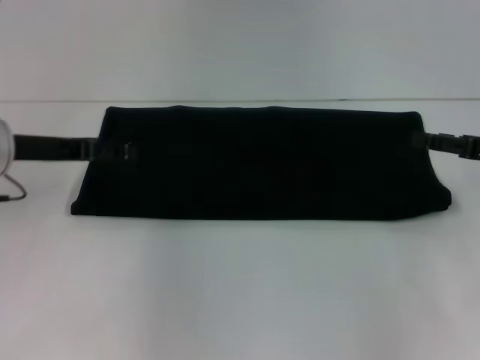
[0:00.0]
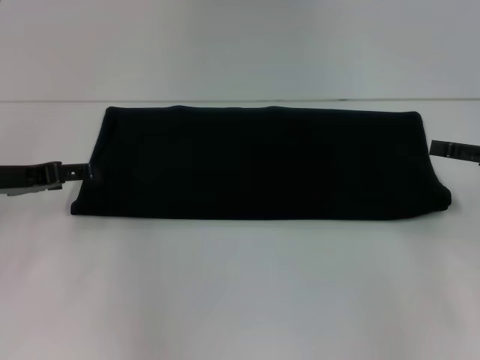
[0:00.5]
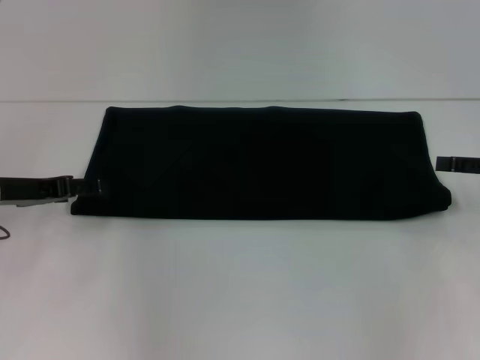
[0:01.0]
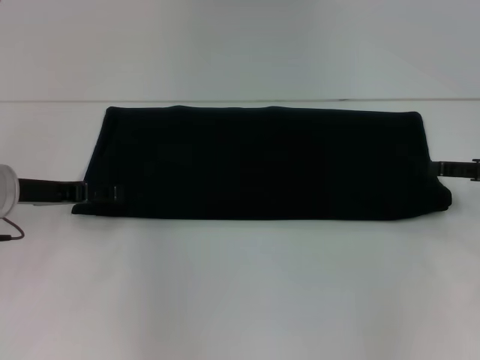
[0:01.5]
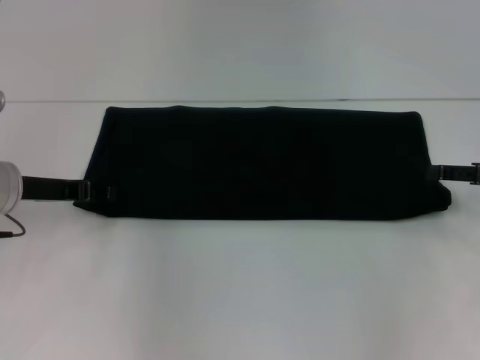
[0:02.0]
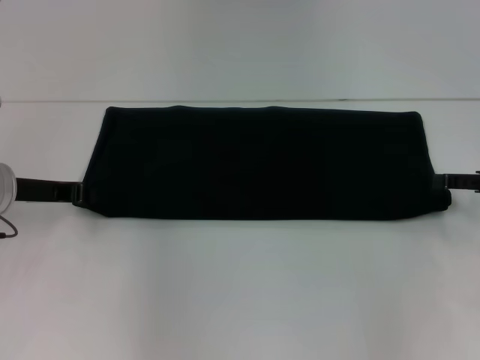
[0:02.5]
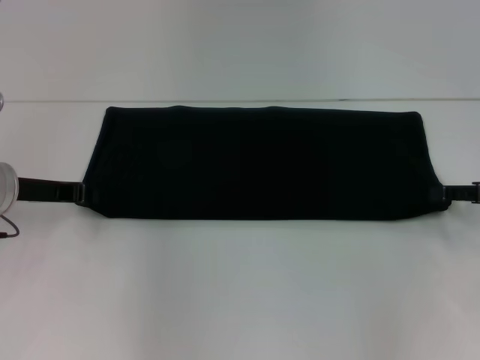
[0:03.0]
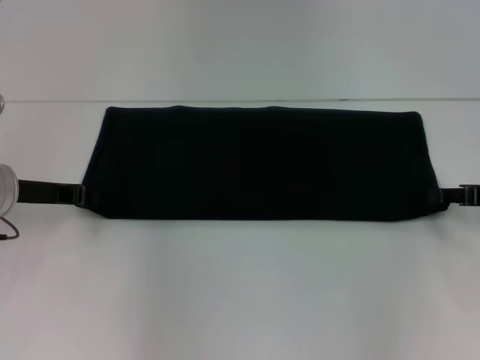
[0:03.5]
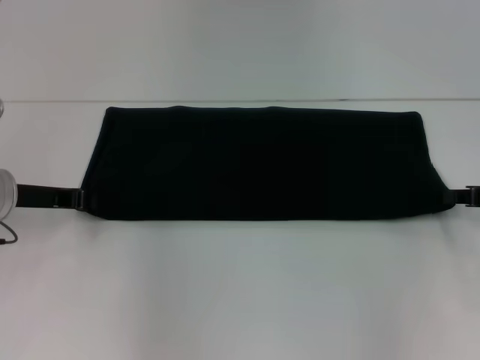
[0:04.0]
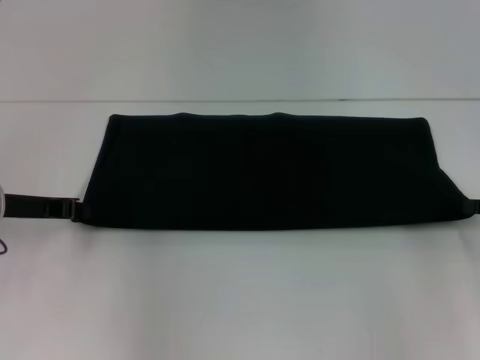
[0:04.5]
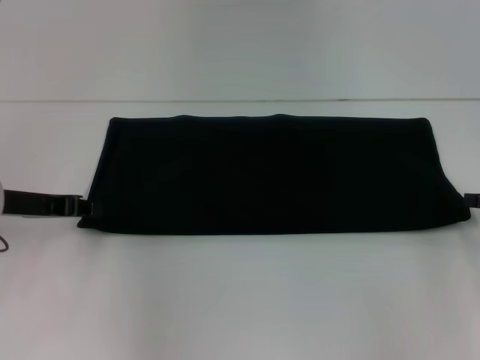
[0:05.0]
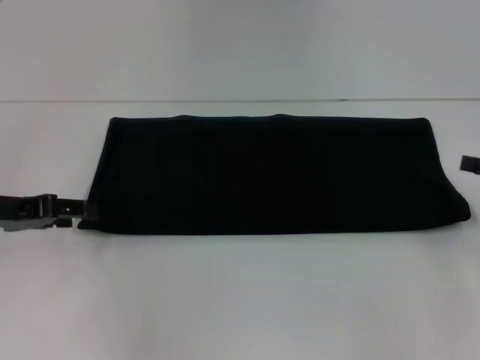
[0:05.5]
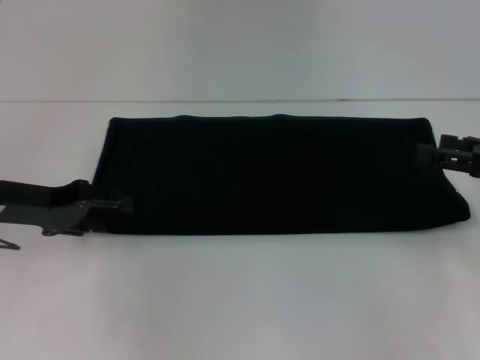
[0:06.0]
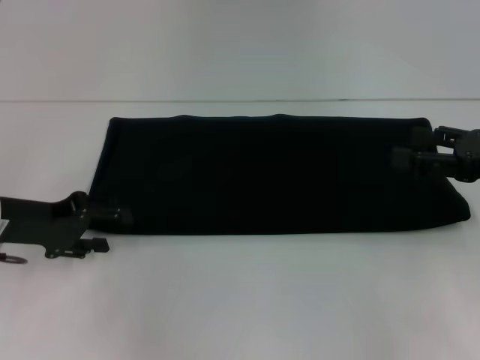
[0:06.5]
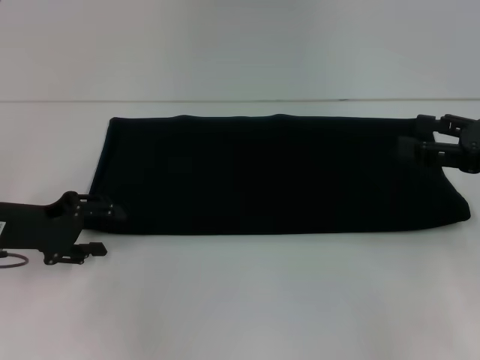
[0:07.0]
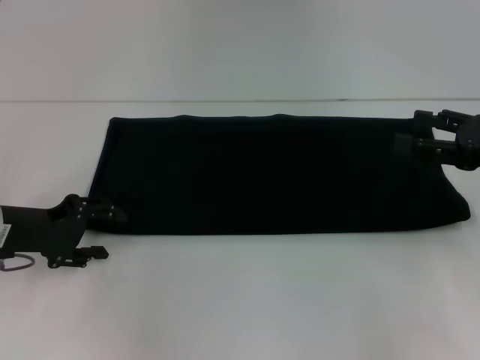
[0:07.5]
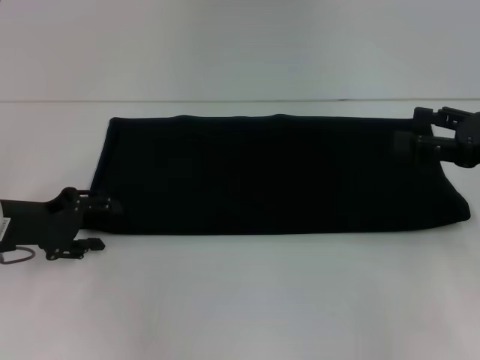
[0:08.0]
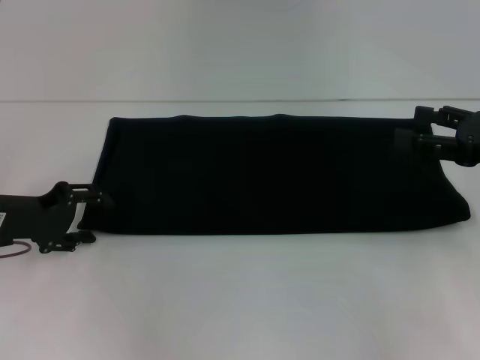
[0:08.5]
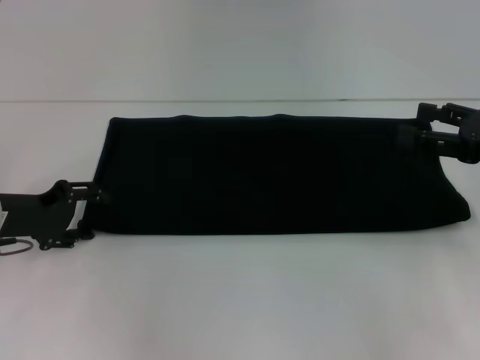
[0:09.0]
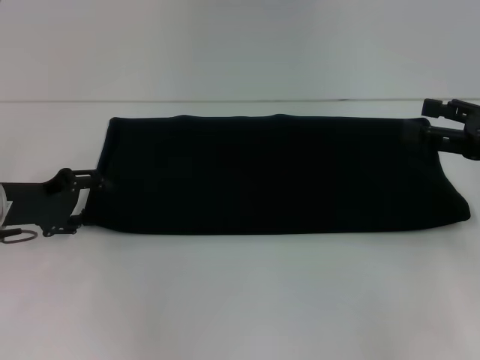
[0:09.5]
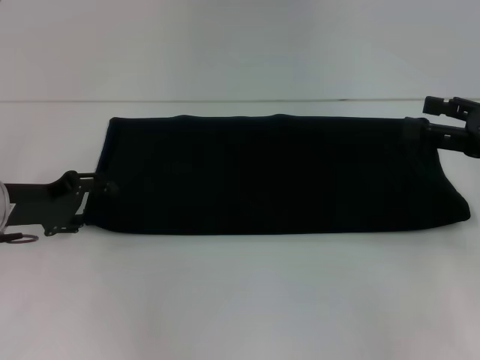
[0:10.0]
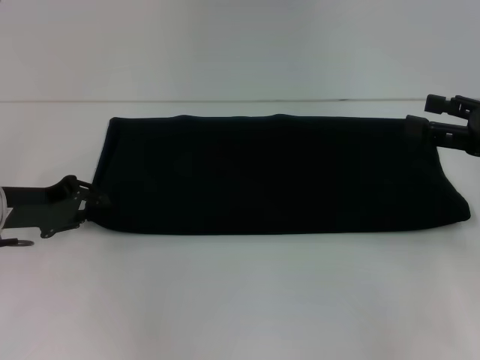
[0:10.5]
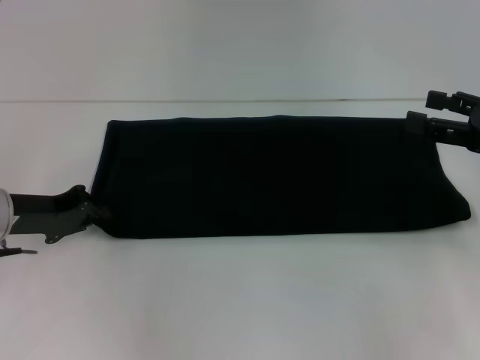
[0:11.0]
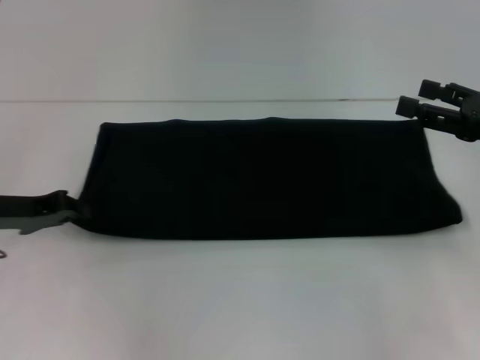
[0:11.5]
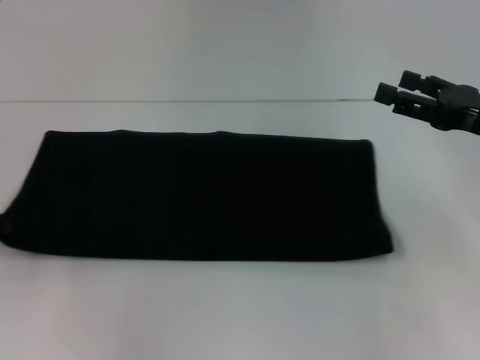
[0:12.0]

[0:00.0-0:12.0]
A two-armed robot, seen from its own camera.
0:00.0 to 0:02.0: The grippers stay close to where they were, moving slightly.
0:02.0 to 0:04.0: The right gripper closes its fingers. Meanwhile the left gripper closes its fingers.
0:04.0 to 0:06.0: The right gripper opens its fingers; the left gripper opens up.
0:08.0 to 0:10.0: The grippers stay close to where they were, moving slightly.
0:10.0 to 0:12.0: The left gripper heads to the left, covering roughly 10 cm, and closes its fingers.

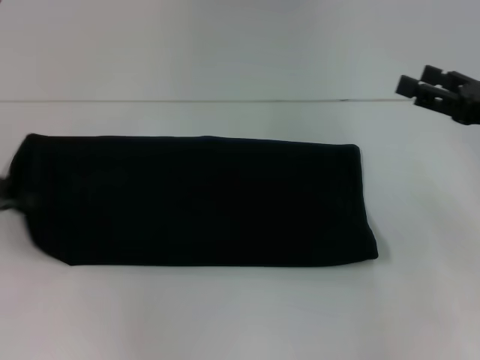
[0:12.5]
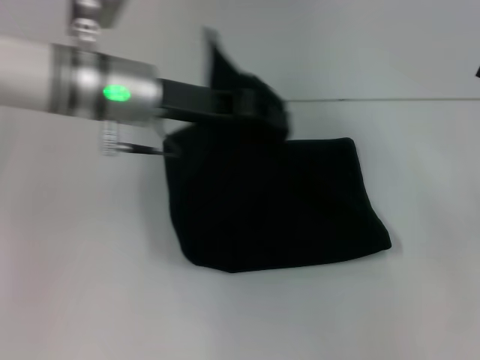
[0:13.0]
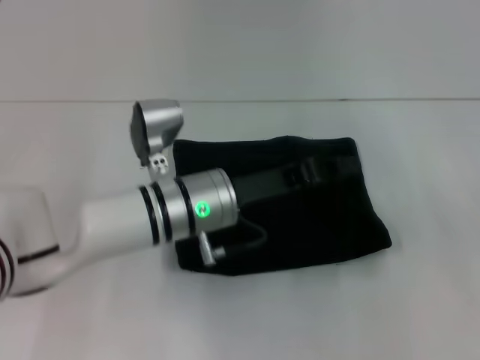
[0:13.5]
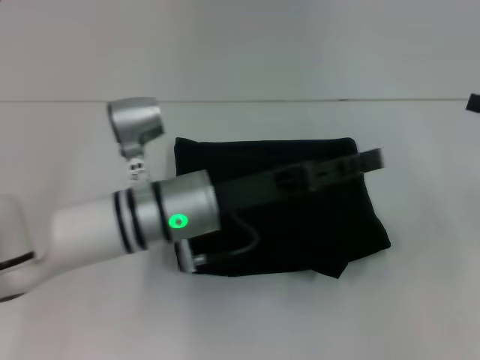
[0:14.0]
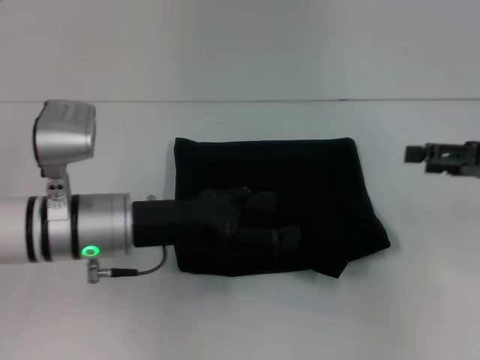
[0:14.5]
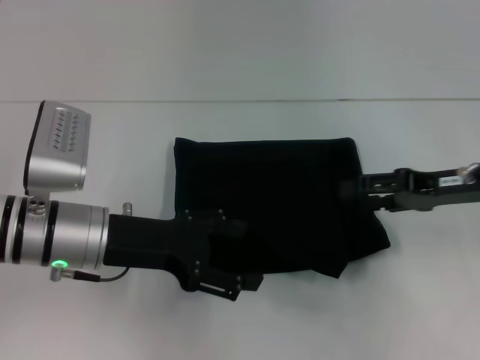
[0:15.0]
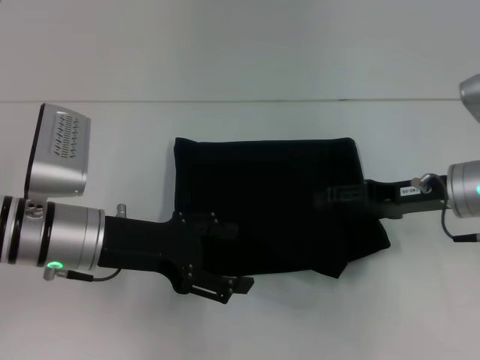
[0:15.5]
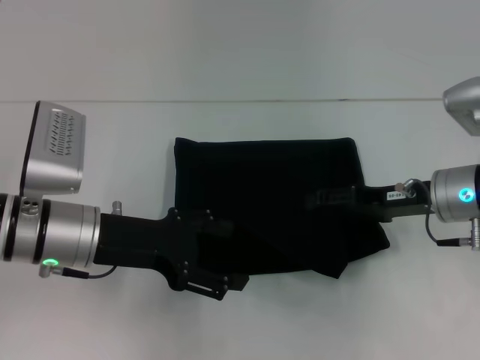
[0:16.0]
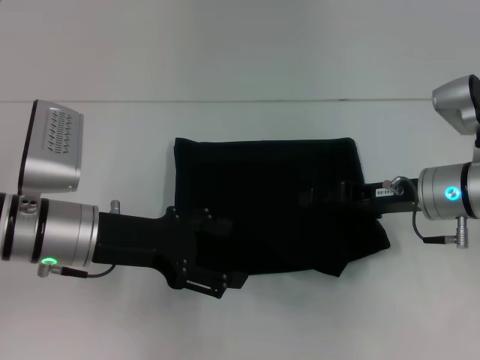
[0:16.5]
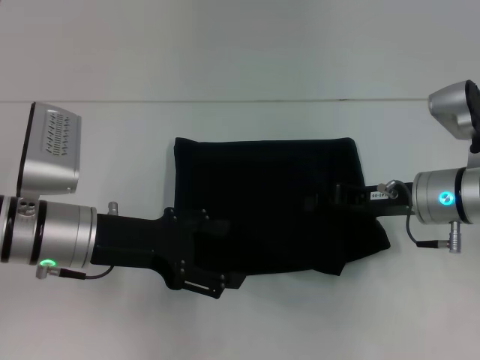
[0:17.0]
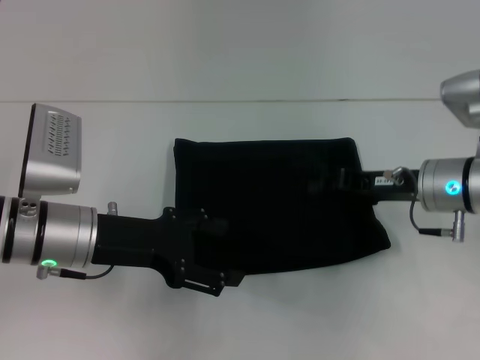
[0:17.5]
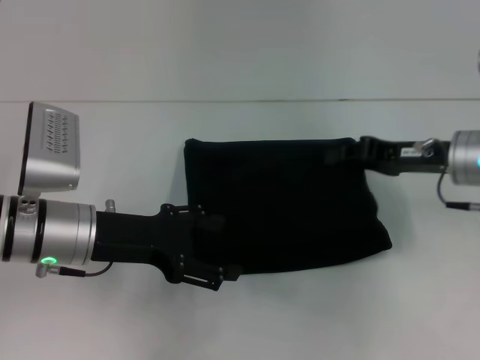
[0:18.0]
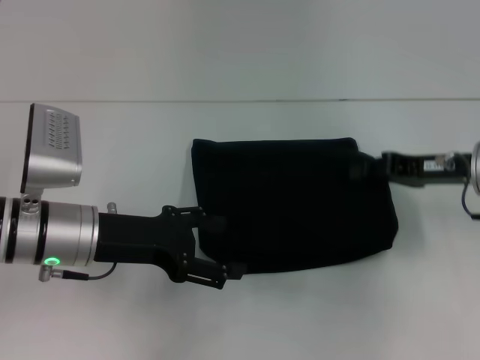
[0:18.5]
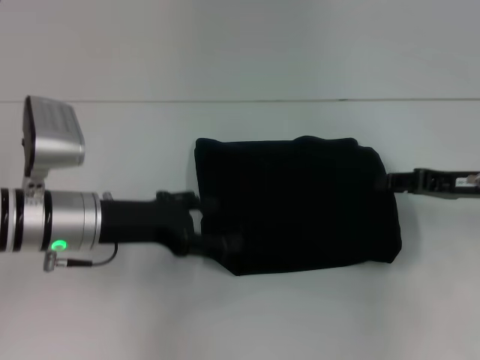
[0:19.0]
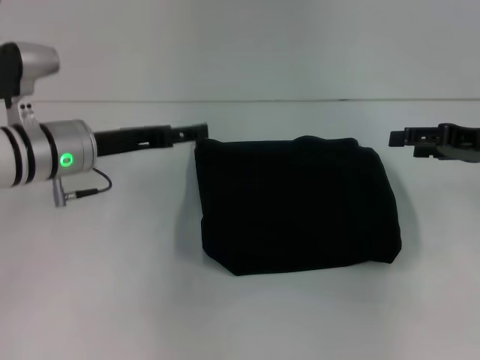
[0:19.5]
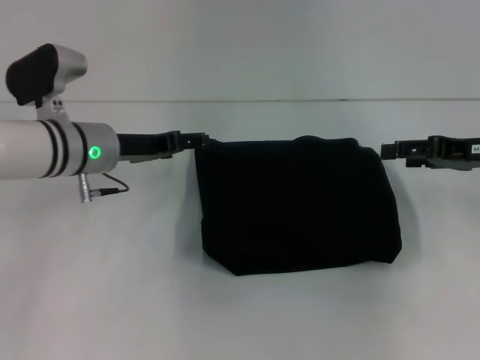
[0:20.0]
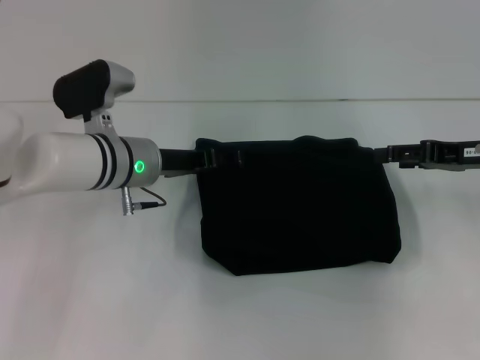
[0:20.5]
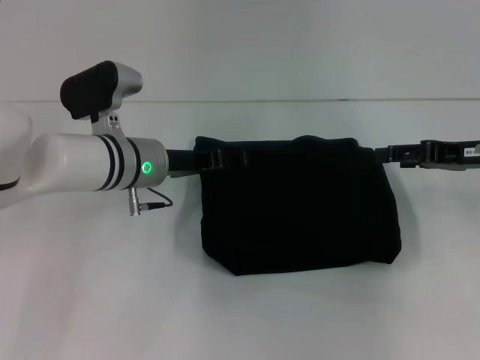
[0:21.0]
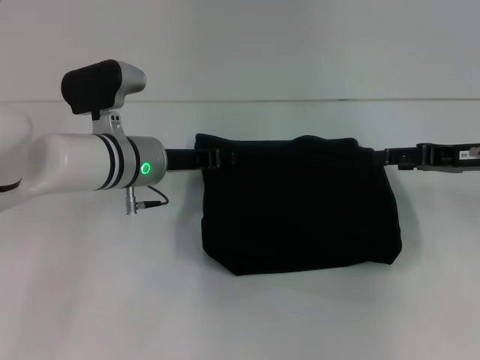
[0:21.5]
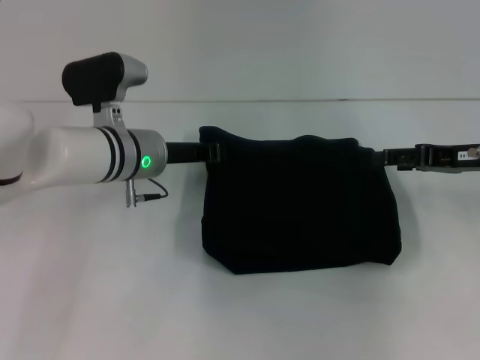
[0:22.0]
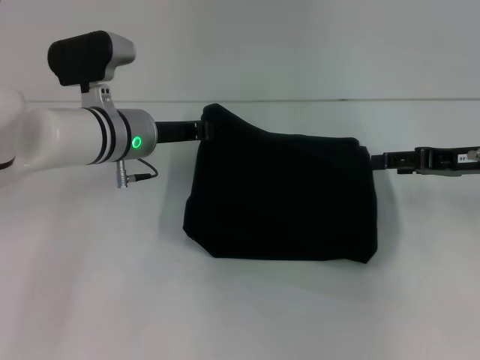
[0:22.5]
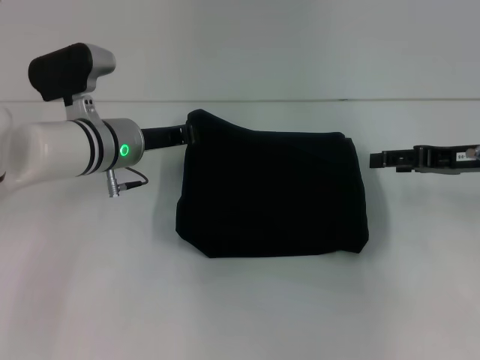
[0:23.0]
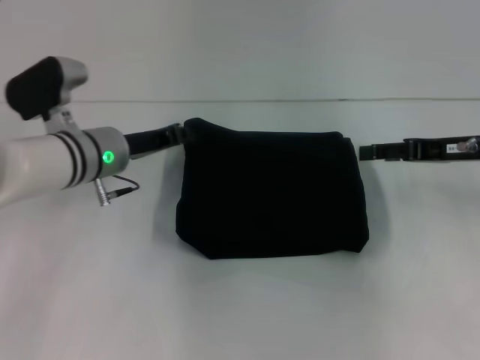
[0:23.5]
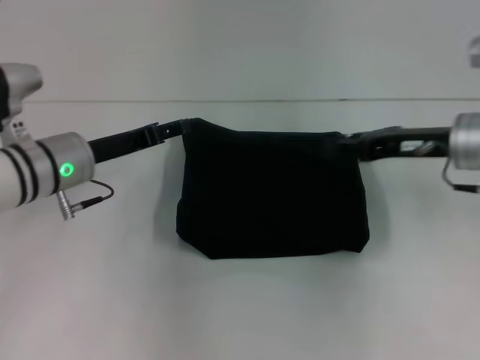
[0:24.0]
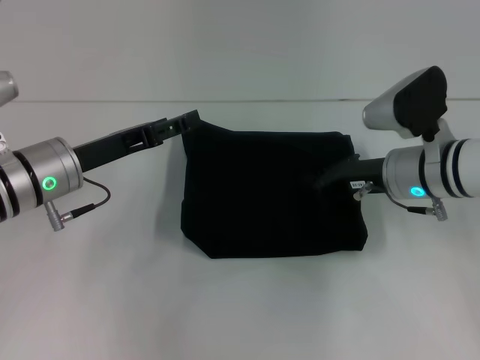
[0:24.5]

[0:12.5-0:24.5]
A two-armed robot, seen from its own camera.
0:12.5 to 0:14.5: The left gripper goes some 20 cm to the right, and opens its fingers.
0:14.5 to 0:16.5: The right gripper heads to the left and downward, covering approximately 15 cm.
0:16.5 to 0:18.5: The right gripper changes place by some 5 cm, and closes up.
0:18.5 to 0:20.5: The left gripper travels forward and to the right by approximately 10 cm. Meanwhile the right gripper opens up.
0:20.5 to 0:22.5: The left gripper closes.
0:22.5 to 0:24.5: The left gripper moves to the left and backward, roughly 10 cm, and opens. The right gripper shifts about 10 cm to the left, and closes its fingers.

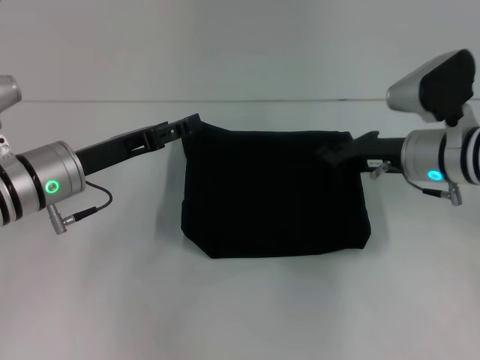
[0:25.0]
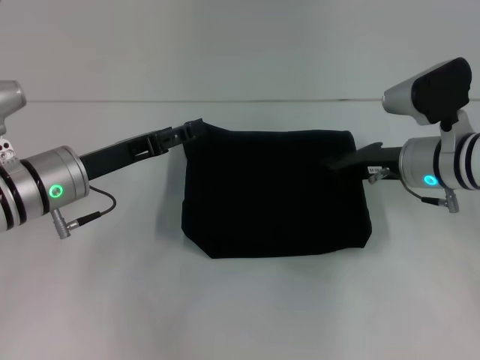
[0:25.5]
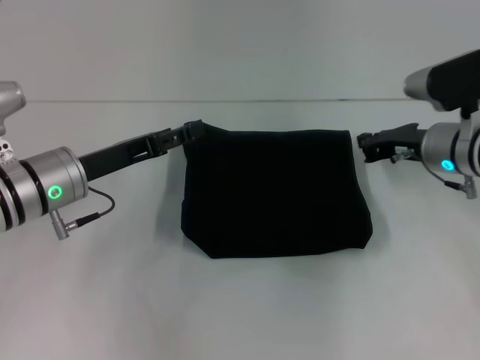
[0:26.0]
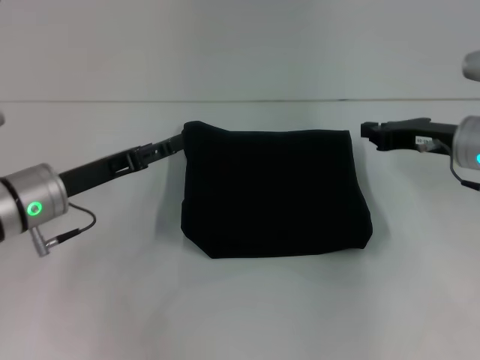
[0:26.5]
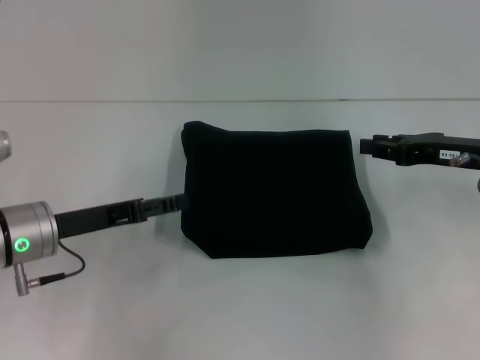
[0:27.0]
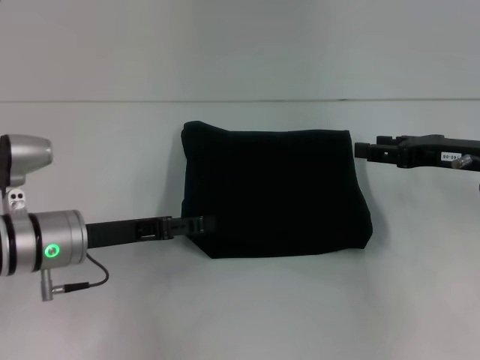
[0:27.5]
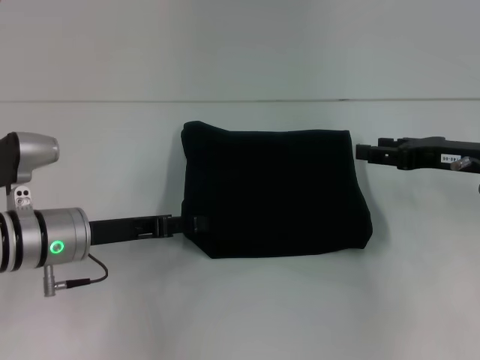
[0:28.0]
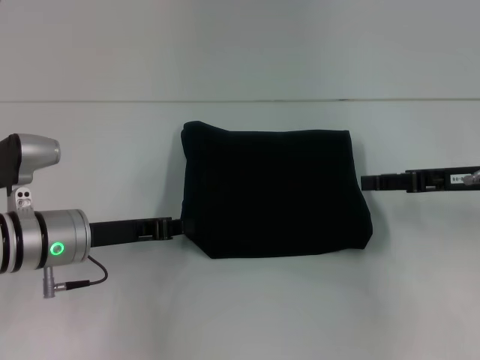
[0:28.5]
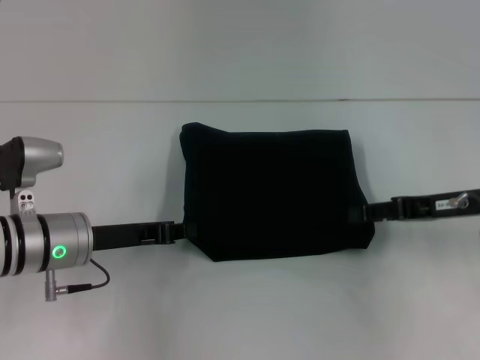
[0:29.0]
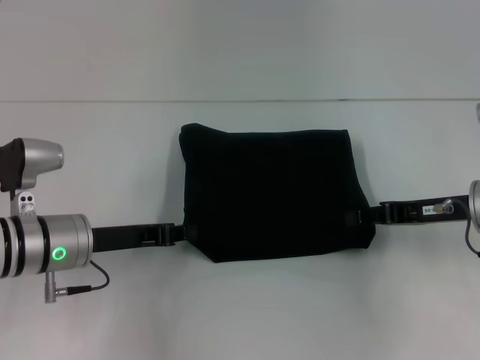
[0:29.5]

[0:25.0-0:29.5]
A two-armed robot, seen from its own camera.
0:25.0 to 0:27.0: The left gripper moves roughly 5 cm. Meanwhile the right gripper travels to the right by roughly 10 cm.
0:27.0 to 0:29.5: The left gripper closes.
